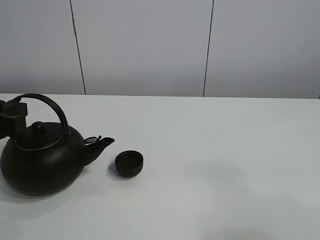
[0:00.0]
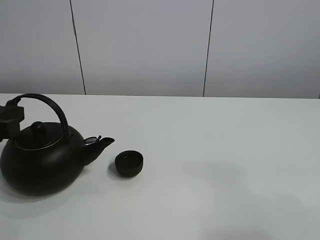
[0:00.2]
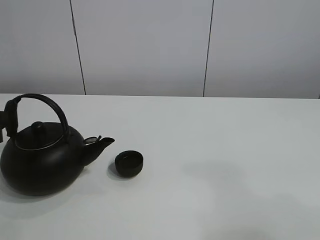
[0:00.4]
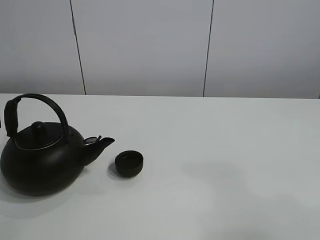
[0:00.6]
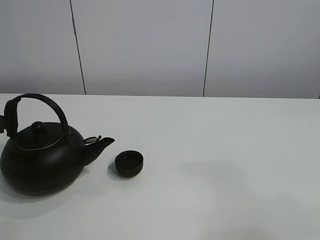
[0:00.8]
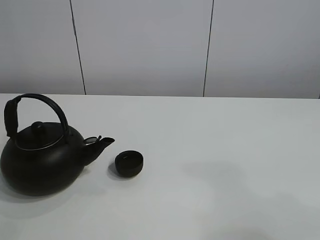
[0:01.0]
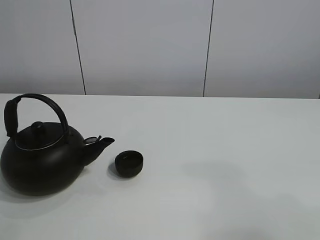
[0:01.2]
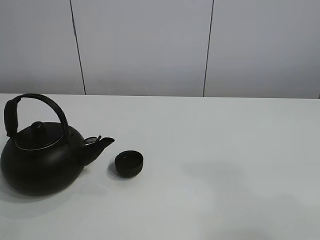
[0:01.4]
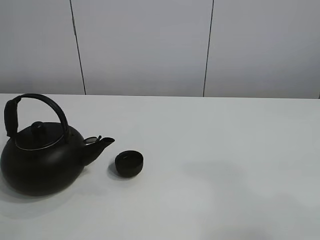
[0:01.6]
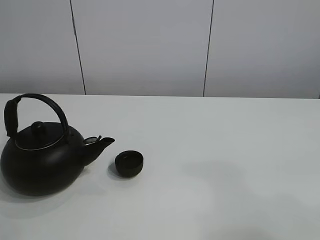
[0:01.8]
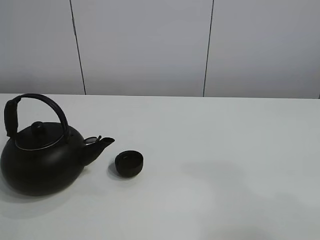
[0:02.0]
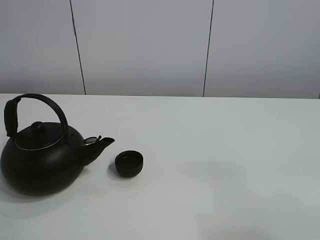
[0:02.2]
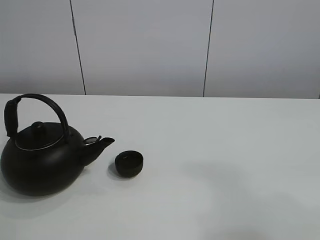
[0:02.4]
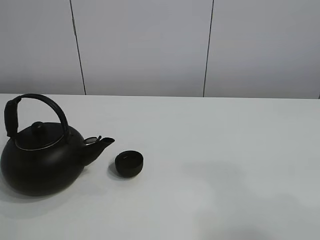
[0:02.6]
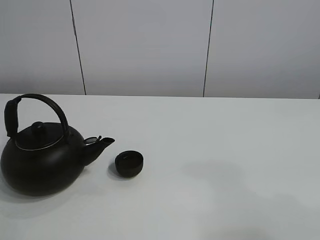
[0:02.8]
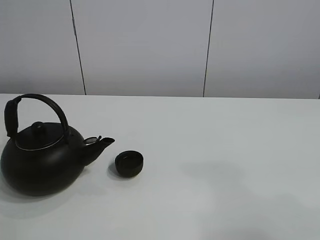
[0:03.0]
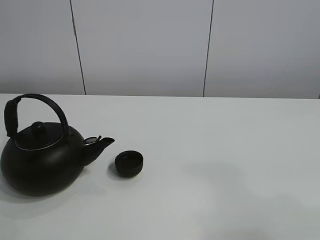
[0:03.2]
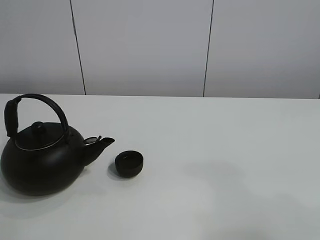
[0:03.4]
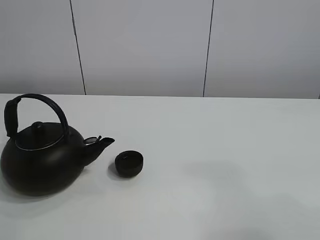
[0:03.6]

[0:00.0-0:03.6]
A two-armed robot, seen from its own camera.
Task of the whole recording: pour tea into the teacup.
0.0 to 1.8 s: The left gripper shifts some 20 cm to the left and upward.

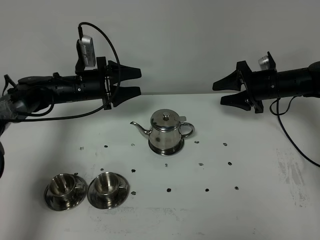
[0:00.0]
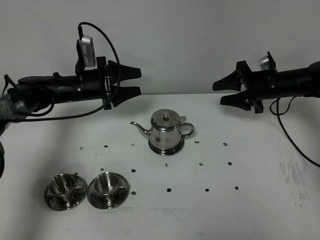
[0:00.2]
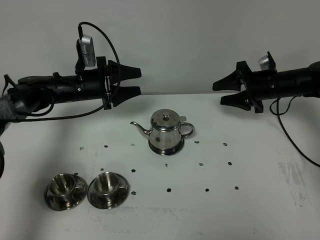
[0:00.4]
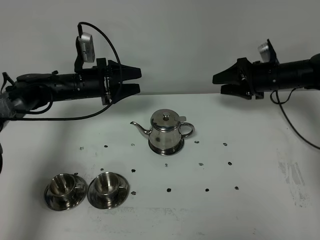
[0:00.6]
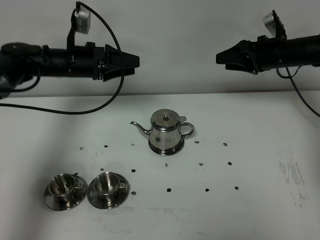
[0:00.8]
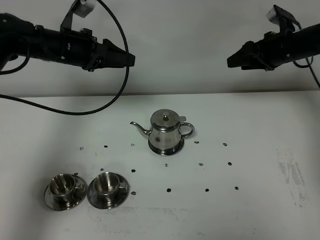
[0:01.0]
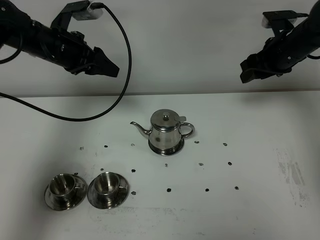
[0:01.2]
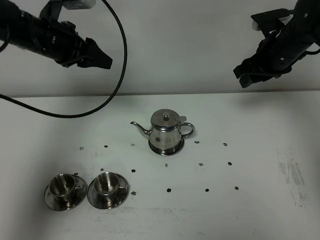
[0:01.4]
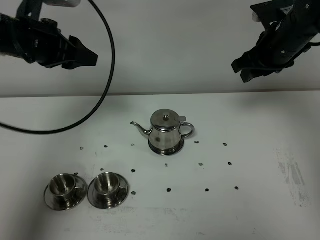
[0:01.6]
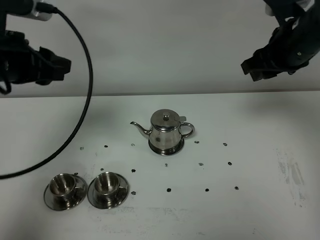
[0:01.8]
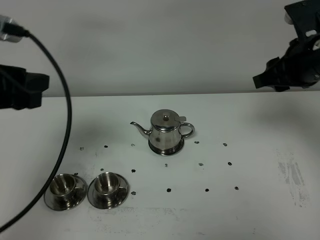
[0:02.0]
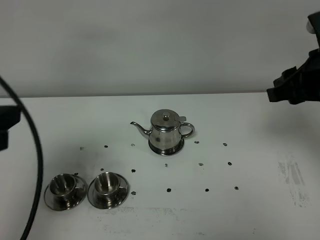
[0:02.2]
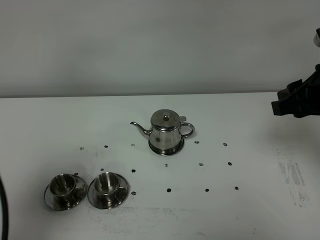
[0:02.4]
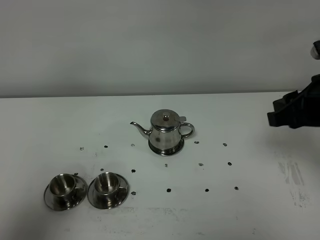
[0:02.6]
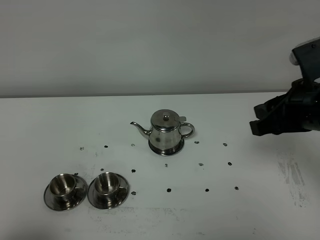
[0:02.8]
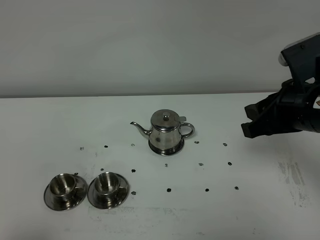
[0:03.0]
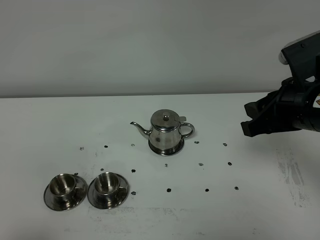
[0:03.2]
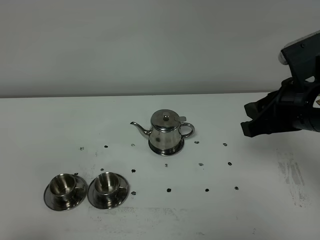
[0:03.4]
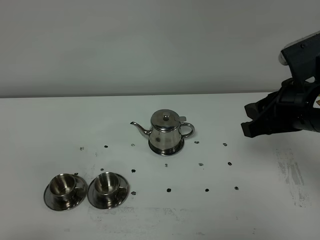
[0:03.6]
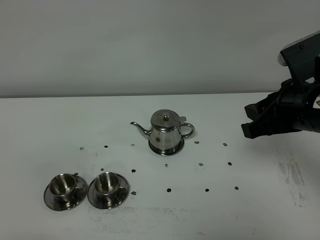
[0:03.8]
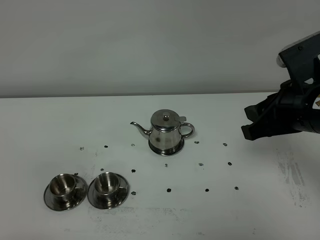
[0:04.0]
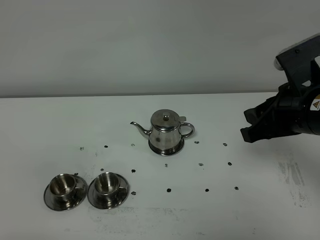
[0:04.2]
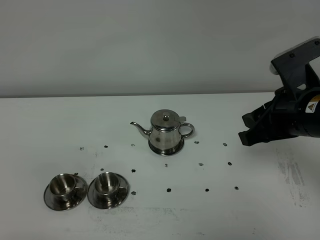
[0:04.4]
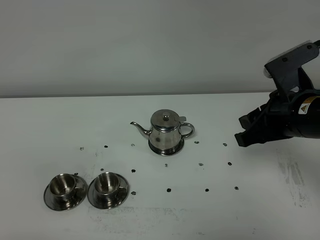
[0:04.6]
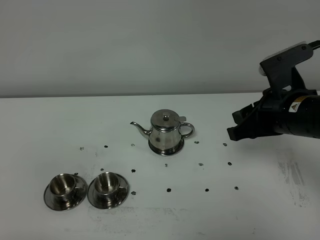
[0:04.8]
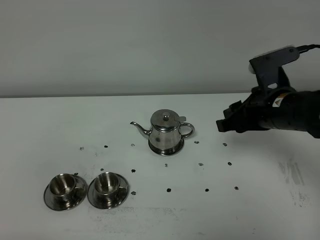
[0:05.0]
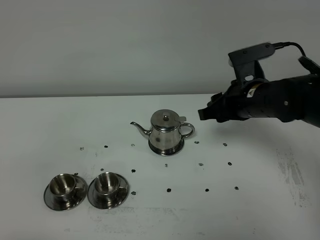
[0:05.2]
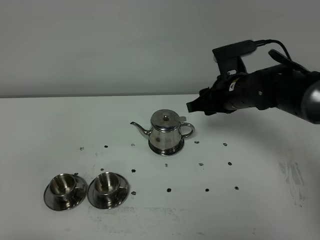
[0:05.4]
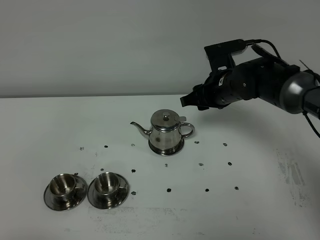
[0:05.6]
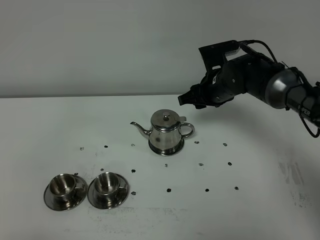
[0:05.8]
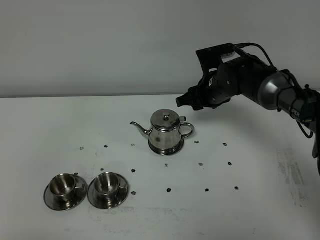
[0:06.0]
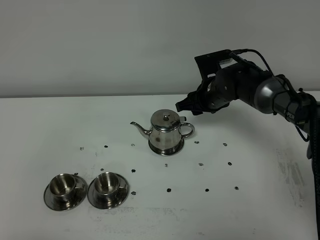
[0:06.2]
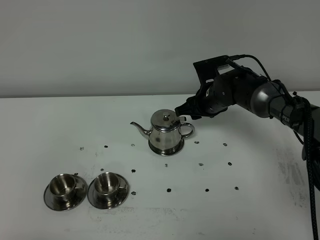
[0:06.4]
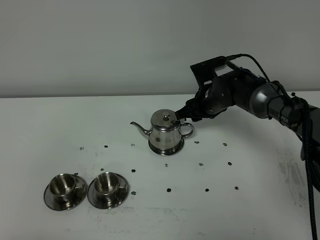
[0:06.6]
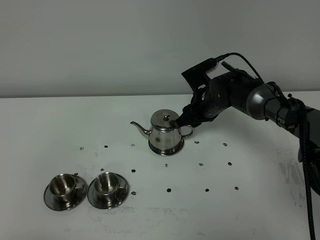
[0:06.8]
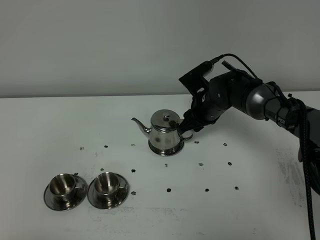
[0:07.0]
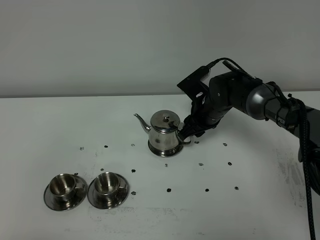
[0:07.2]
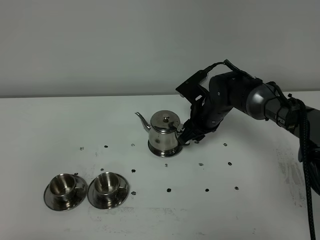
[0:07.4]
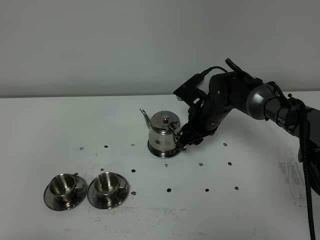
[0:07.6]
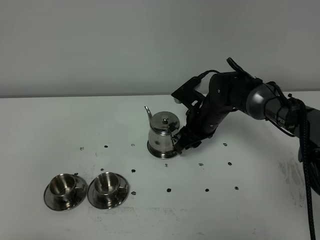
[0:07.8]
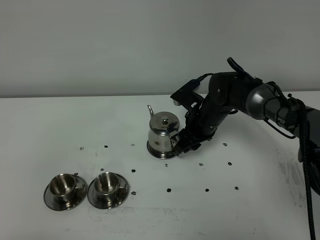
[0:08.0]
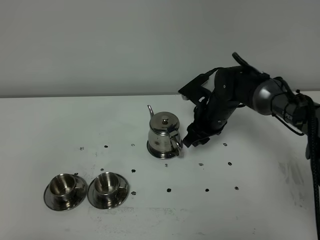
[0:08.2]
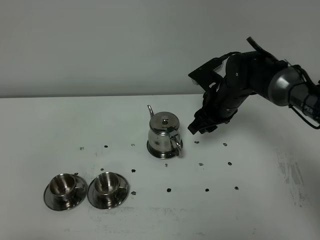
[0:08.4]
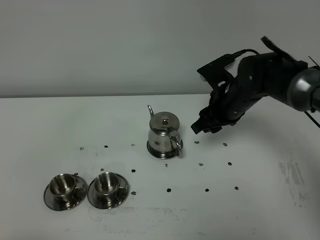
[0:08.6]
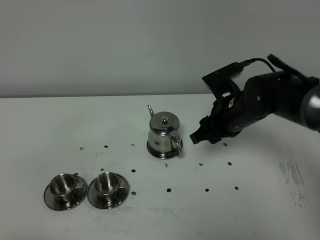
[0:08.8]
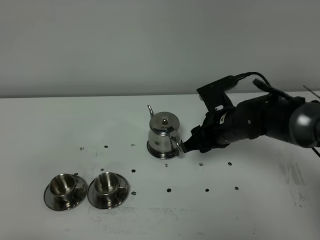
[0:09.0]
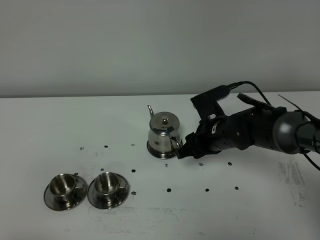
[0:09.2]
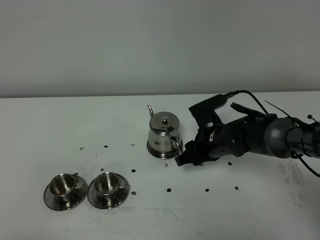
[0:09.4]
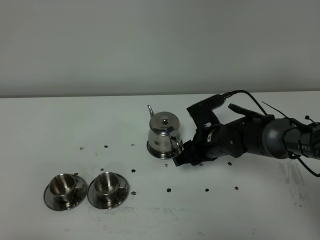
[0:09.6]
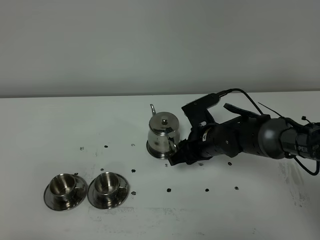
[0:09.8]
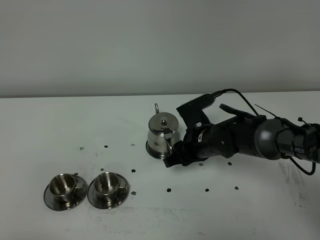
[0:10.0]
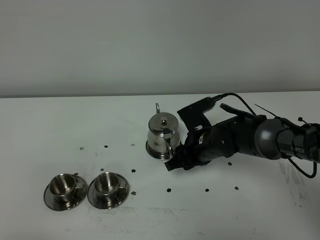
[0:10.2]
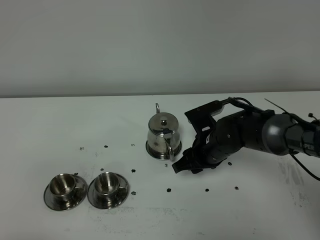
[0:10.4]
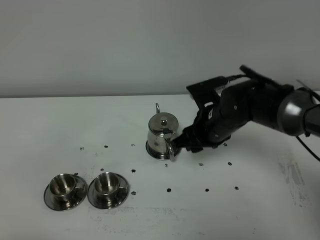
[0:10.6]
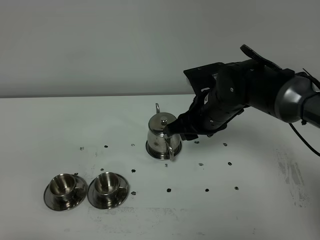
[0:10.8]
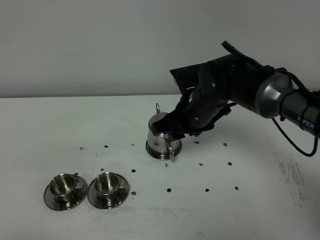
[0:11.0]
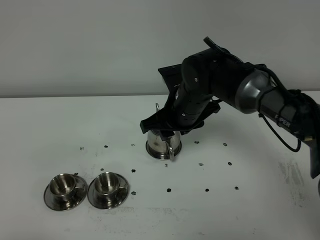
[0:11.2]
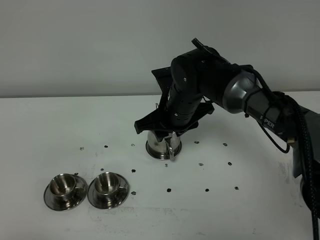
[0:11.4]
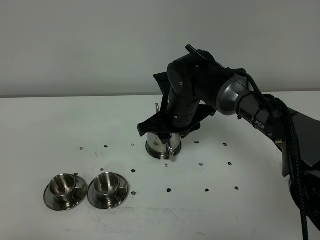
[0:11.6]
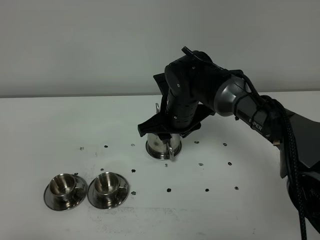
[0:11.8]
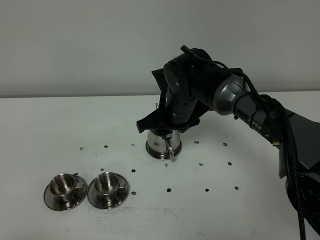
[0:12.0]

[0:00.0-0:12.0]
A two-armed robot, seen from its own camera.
Task of the whole recording: grasp the stainless steel teapot and pour the tea into the two stainless steel teacups one by one, put the stainless steel teapot back in its original place.
0.0 to 1.6 s: The grippers both shift upward and backward by roughly 20 cm. The left gripper closes up.
1.6 to 3.0 s: The left gripper goes roughly 40 cm backward, while the right gripper goes roughly 20 cm backward.
3.0 to 4.4 s: There are only small adjustments of the grippers.
4.4 to 6.0 s: The right gripper shifts about 25 cm forward, downward and to the left.
6.0 to 7.6 s: The right gripper ends up about 5 cm from where it was.
7.6 to 9.0 s: The right gripper heads backward, covering about 10 cm.
9.0 to 10.4 s: The grippers move only a little.
10.4 to 12.0 s: The right gripper travels upward and to the left by roughly 10 cm.

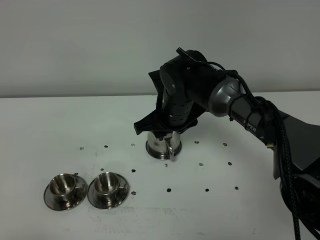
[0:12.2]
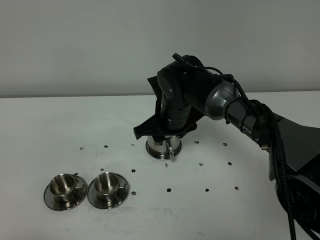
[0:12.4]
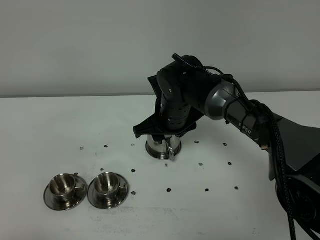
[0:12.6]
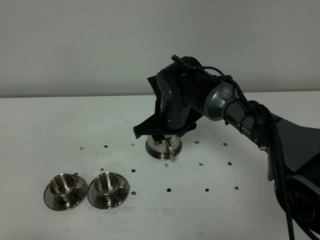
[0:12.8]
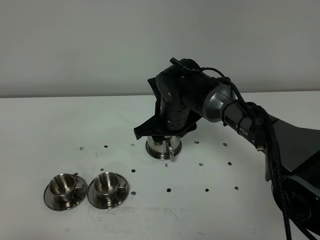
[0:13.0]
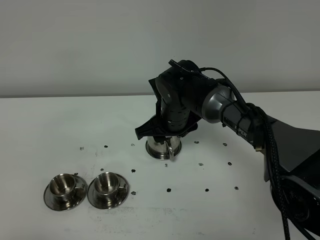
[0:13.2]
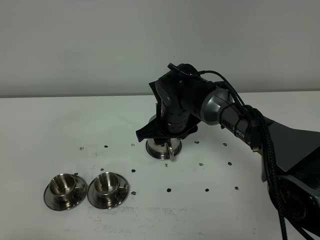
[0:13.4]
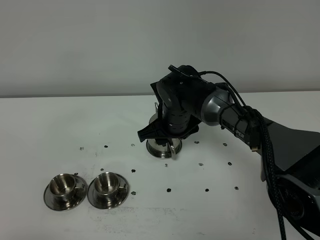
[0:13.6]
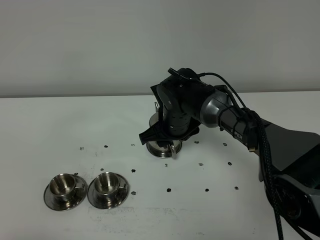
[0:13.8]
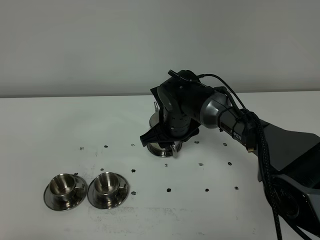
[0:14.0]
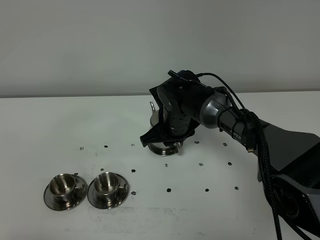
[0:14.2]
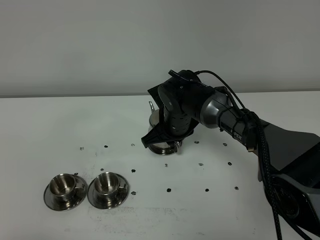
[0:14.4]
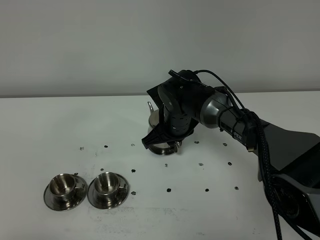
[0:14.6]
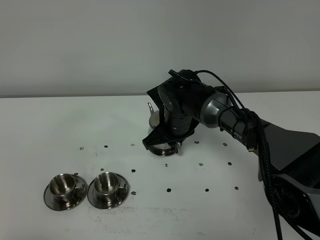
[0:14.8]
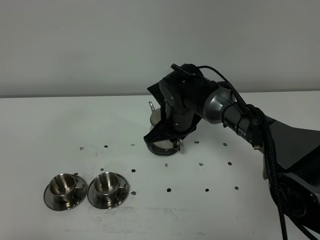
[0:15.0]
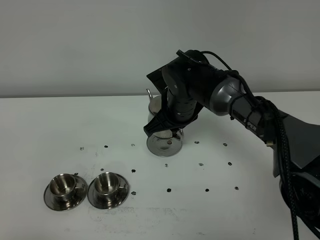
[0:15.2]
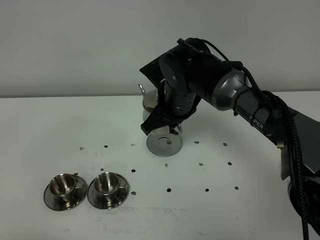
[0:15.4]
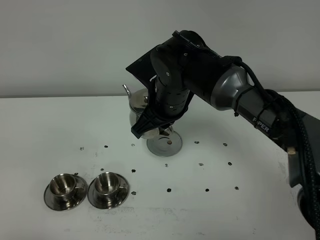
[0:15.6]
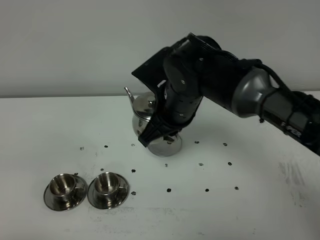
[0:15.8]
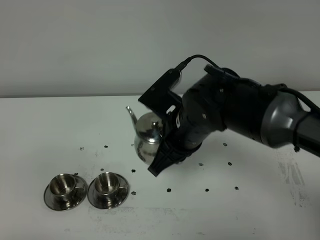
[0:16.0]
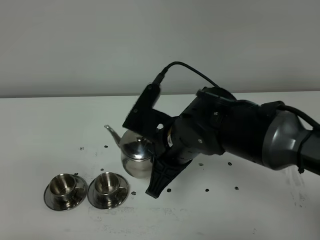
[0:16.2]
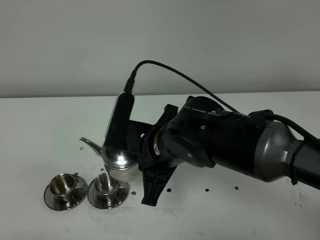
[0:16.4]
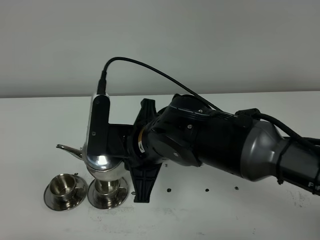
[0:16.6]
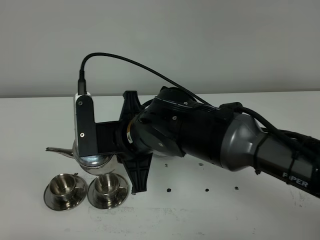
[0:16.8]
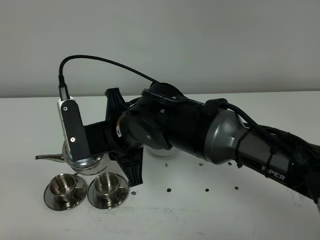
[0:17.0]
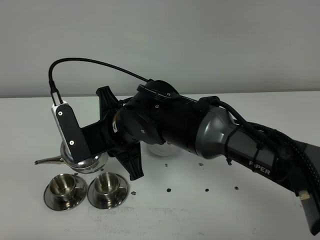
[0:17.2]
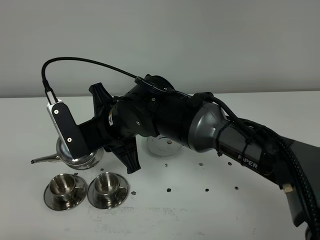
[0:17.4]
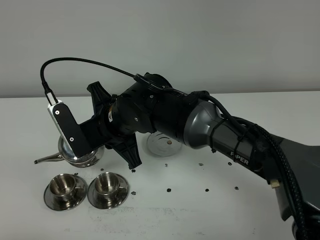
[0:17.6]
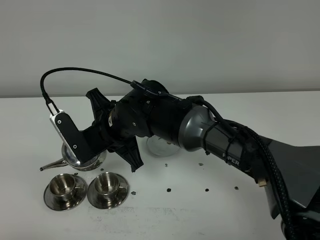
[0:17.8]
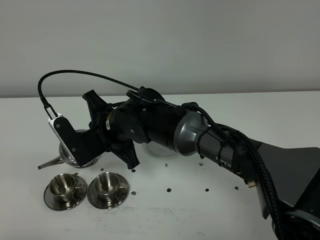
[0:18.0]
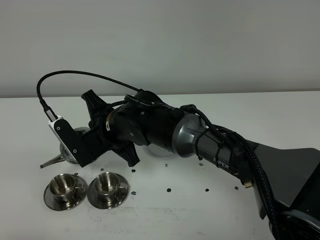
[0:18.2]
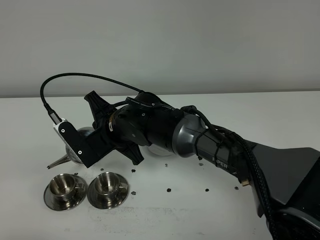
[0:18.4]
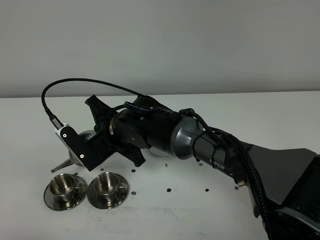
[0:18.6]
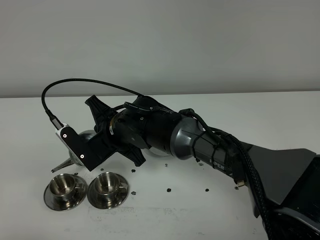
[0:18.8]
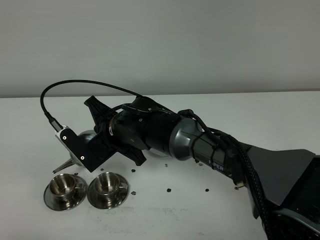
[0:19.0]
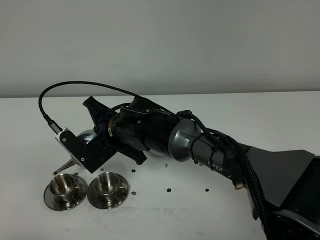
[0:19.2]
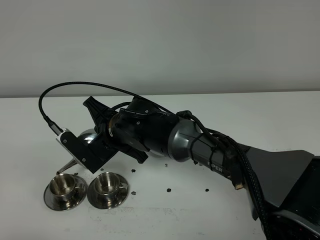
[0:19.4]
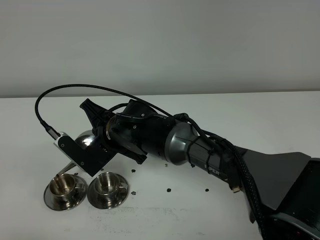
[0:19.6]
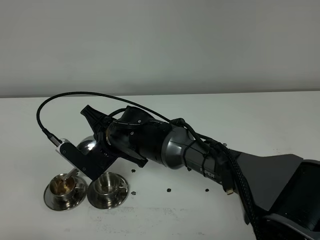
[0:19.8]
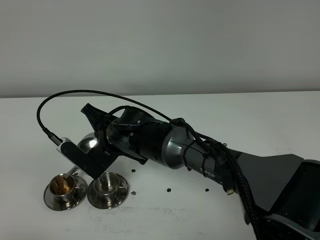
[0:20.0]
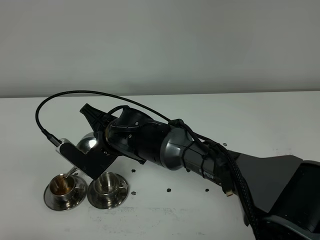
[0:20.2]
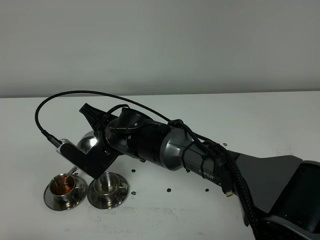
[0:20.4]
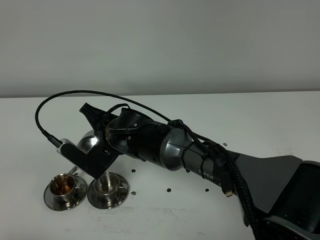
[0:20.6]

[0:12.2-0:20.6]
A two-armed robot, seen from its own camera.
Task of the whole recording: grasp the stainless steel teapot and pour the tea into the two stainless steel teacups one by one, put the stainless steel teapot back in its original place.
12.2 to 13.6 s: The grippers move only a little.
13.6 to 15.0 s: The right gripper closes up.
15.0 to 16.4 s: The right gripper travels backward and upward by some 15 cm.
16.4 to 17.8 s: The right gripper travels forward and to the left by approximately 10 cm.
17.8 to 19.2 s: The grippers make only small movements.
19.2 to 20.6 s: The grippers move only a little.
